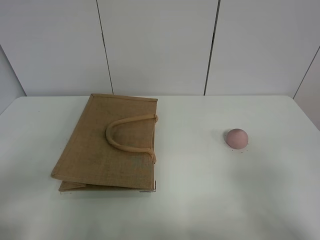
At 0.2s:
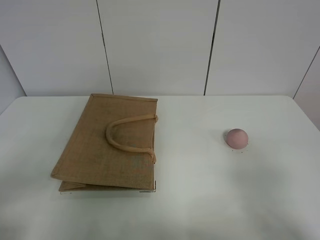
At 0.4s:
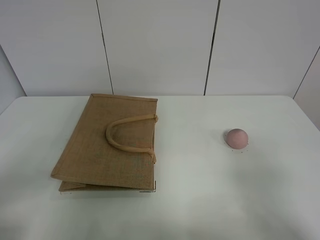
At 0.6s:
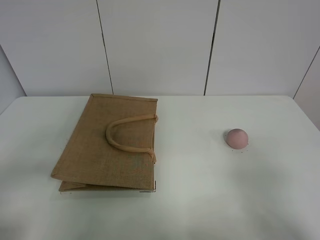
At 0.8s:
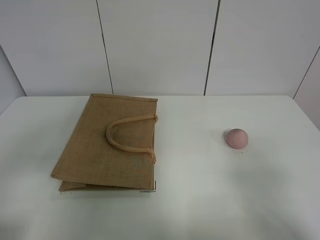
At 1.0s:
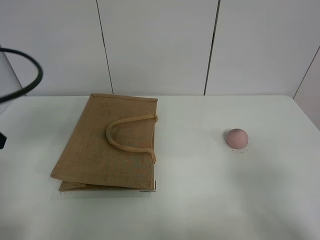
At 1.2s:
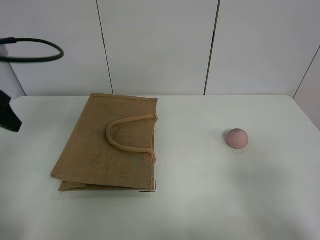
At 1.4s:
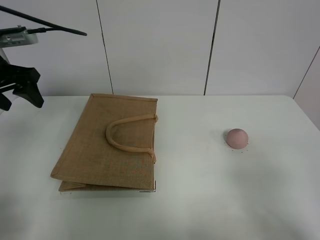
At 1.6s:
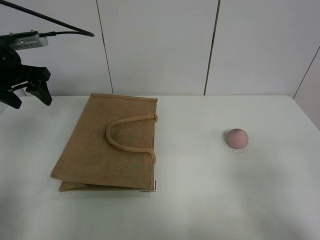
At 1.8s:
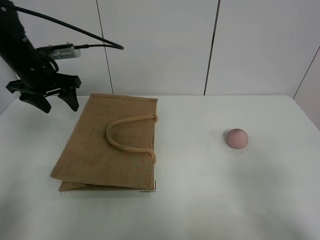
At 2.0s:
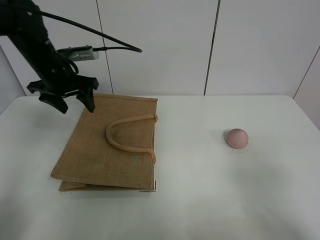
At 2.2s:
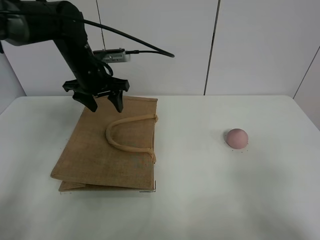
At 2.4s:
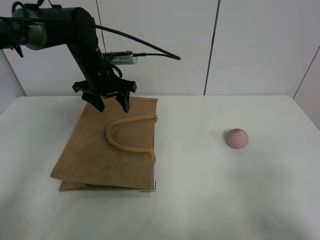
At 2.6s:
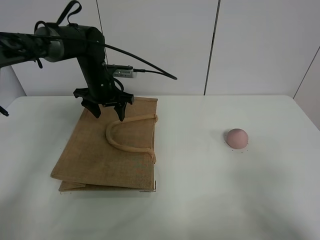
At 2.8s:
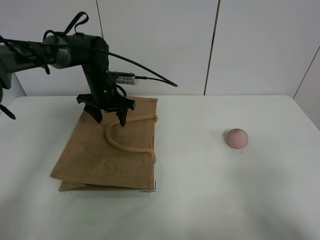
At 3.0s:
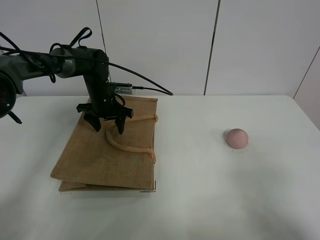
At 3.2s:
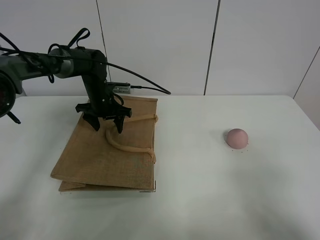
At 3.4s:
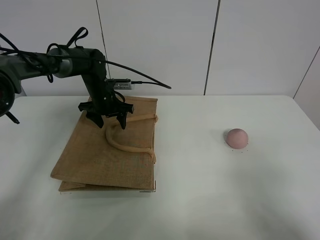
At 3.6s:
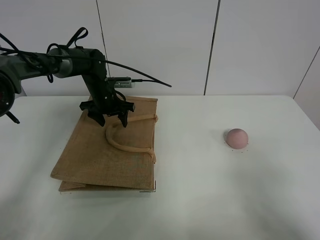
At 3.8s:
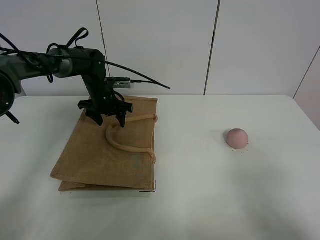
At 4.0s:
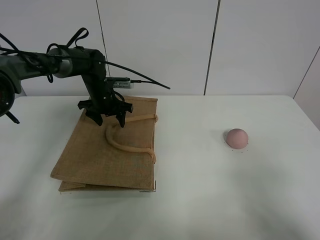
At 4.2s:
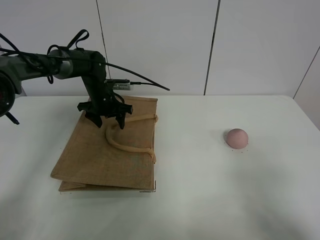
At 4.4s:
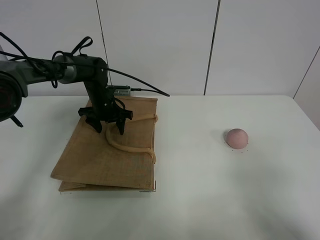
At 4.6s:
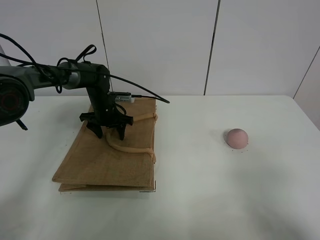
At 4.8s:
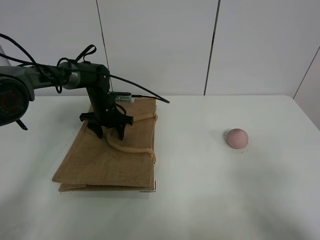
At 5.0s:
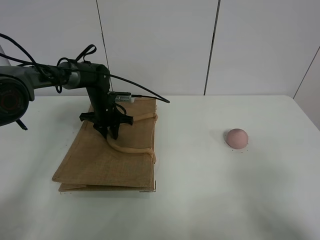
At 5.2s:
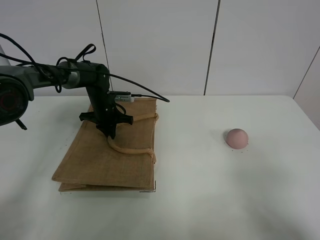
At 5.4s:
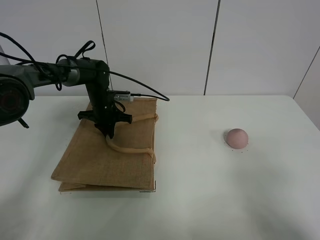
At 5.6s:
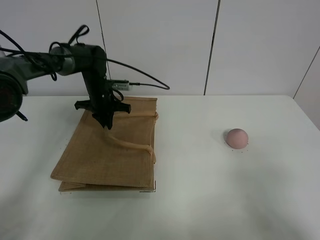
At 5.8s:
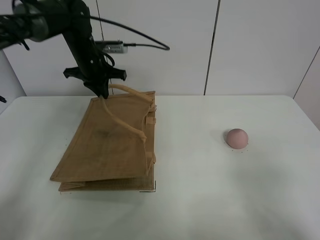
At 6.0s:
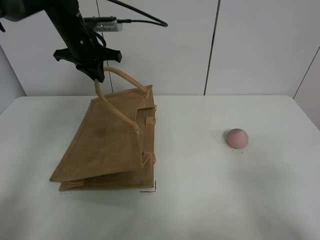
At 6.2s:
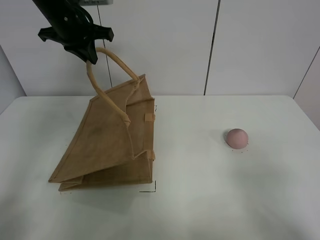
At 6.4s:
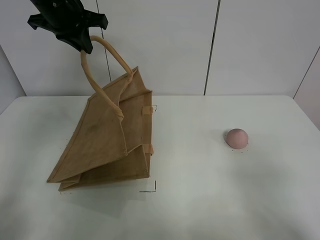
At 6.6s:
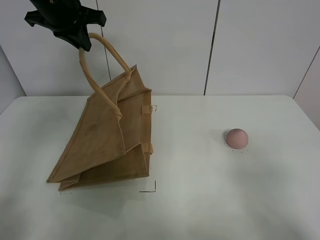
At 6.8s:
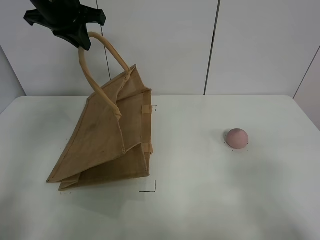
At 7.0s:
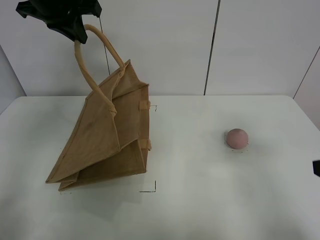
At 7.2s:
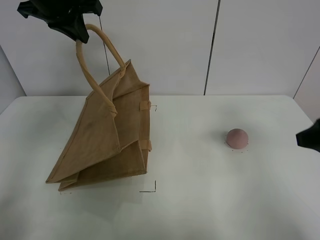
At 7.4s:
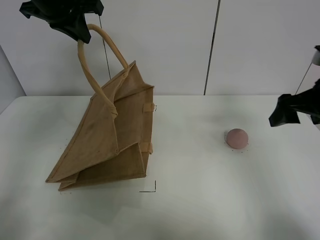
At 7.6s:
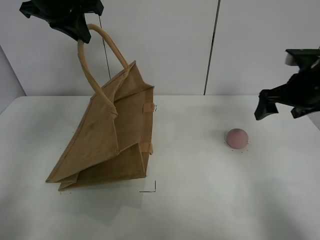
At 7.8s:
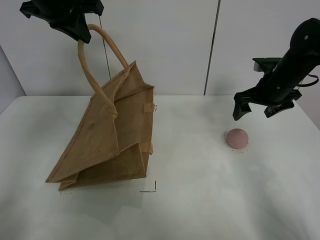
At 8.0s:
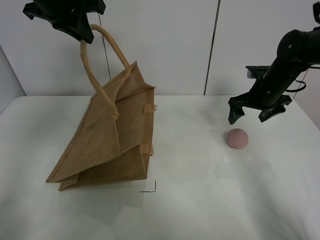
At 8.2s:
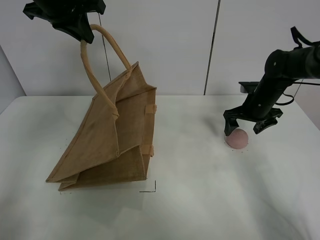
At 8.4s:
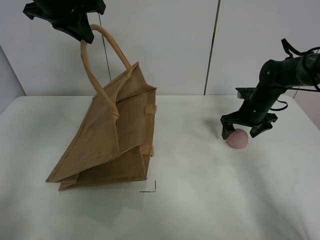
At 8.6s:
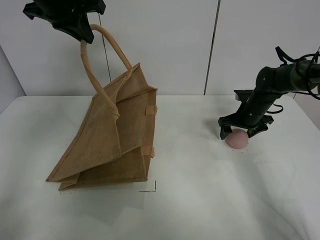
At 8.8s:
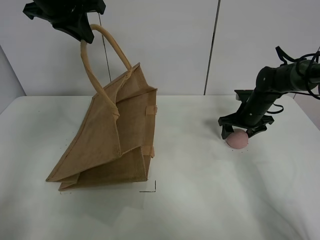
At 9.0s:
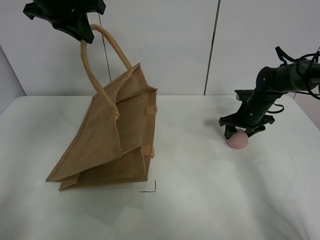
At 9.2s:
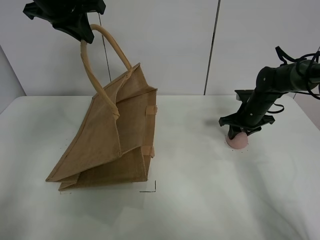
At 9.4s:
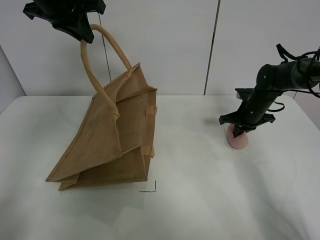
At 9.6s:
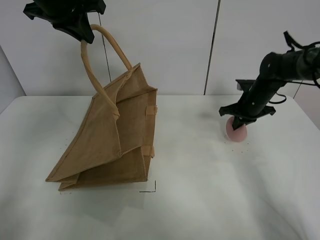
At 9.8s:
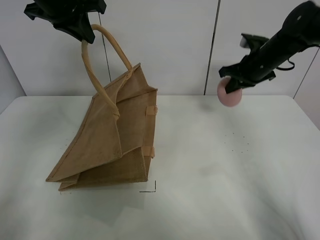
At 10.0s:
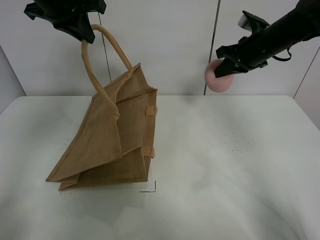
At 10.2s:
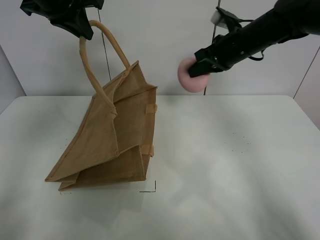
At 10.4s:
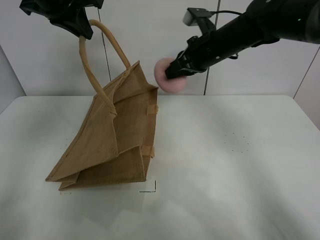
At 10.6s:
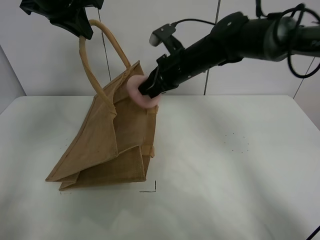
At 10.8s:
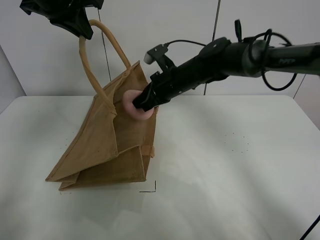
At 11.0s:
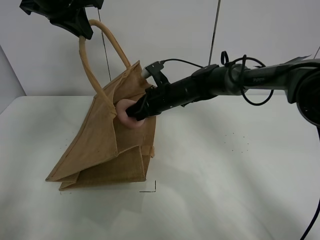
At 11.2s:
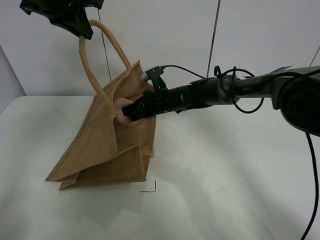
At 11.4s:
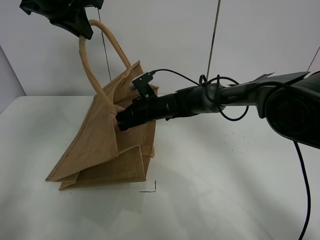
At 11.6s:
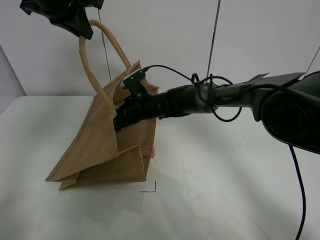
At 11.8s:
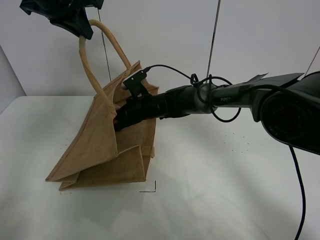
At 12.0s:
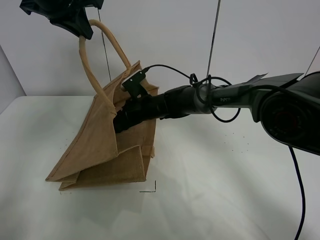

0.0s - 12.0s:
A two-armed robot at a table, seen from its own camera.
Task of the whole recording: open the brown linen bag and put the peach in the bag.
Step, 0.0s - 6.8s: Lift the handbag with left gripper.
Step, 7.0s - 9.4s: Grasp the peach with right gripper.
0.0s - 1.6s: The left gripper is displaced forward by roughly 35 cm.
1.6s - 3.0s: The left gripper is displaced downward, to the right and forward by about 25 cm.
3.0s - 4.4s: The grippers stay close to where they were, moving slightly.
4.4s - 6.0s: The left gripper moves upward, approximately 20 cm, and closes.
6.0s - 7.6s: The right gripper moves forward, approximately 35 cm. Meanwhile the left gripper moves upward and backward, approximately 10 cm.
7.6s - 9.0s: The right gripper goes roughly 15 cm downward and forward.
9.0s - 10.4s: The right gripper is displaced upward and to the left by about 25 cm, and closes its fingers.
10.4s - 12.0s: The right gripper is displaced downward and to the left by about 20 cm, and opens.

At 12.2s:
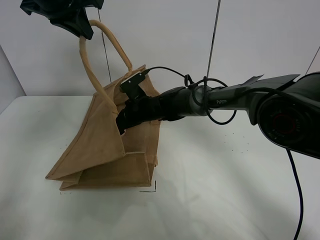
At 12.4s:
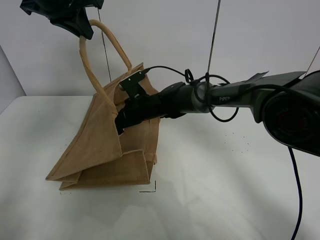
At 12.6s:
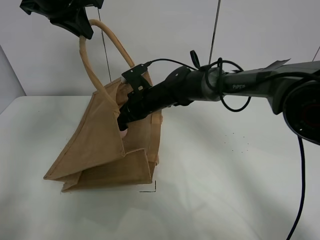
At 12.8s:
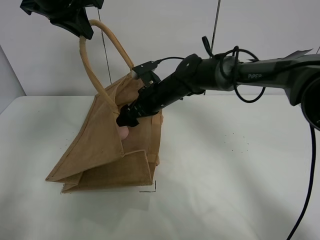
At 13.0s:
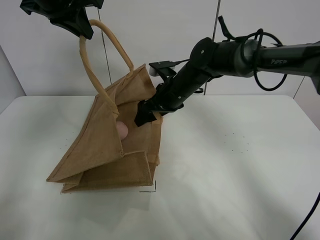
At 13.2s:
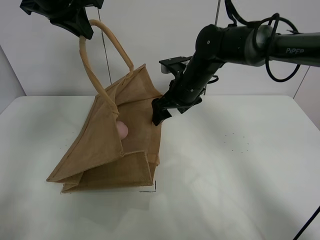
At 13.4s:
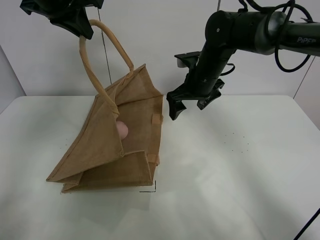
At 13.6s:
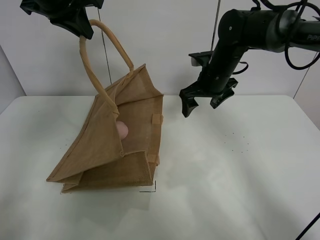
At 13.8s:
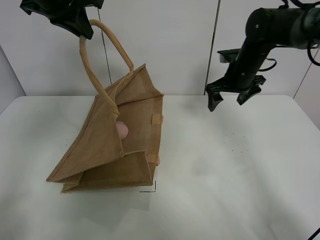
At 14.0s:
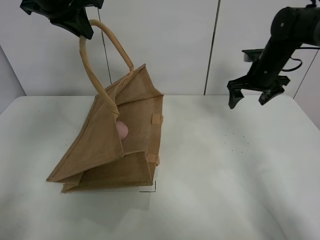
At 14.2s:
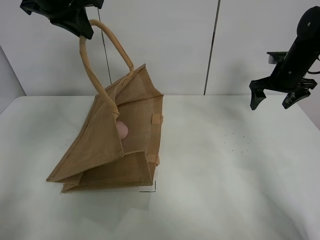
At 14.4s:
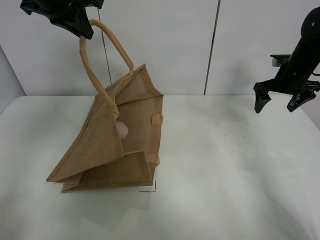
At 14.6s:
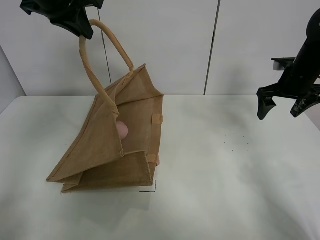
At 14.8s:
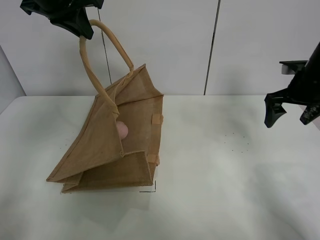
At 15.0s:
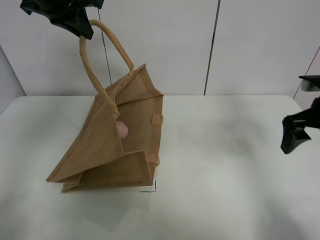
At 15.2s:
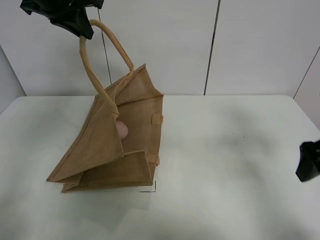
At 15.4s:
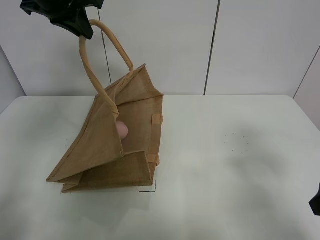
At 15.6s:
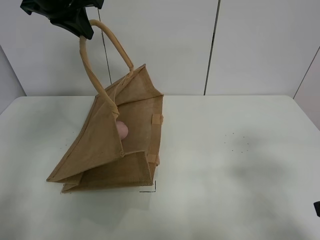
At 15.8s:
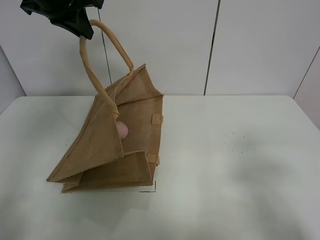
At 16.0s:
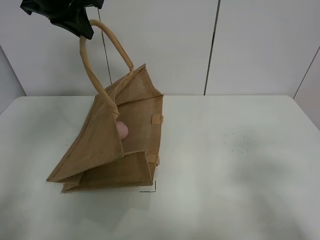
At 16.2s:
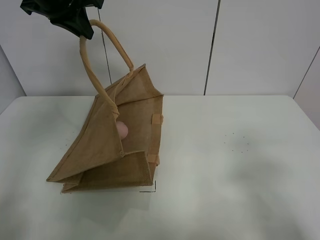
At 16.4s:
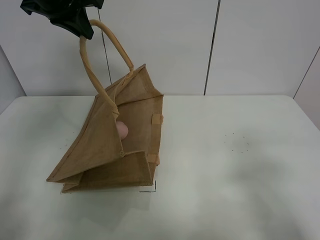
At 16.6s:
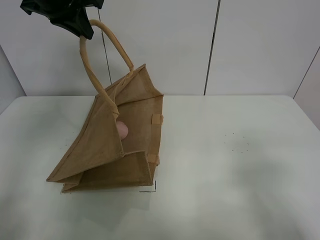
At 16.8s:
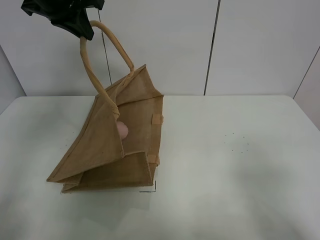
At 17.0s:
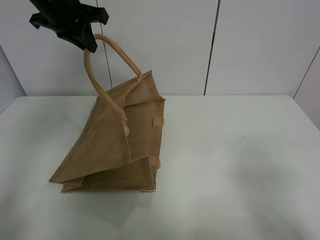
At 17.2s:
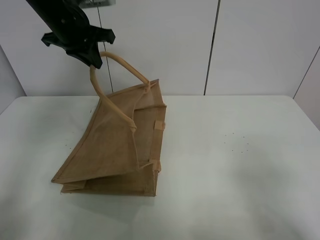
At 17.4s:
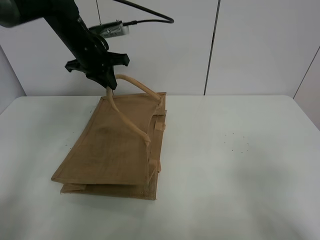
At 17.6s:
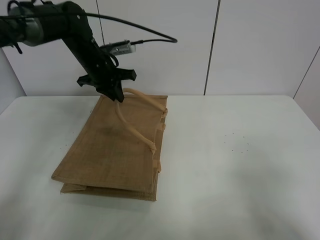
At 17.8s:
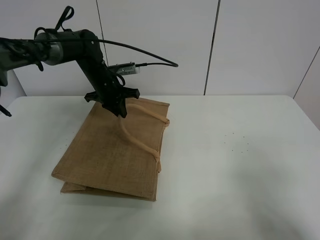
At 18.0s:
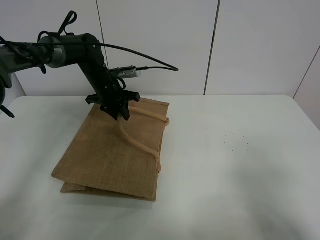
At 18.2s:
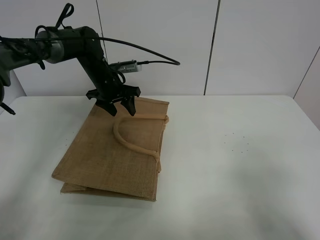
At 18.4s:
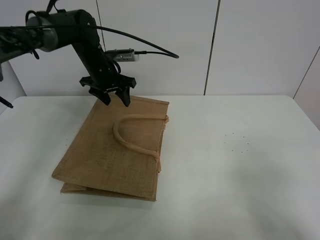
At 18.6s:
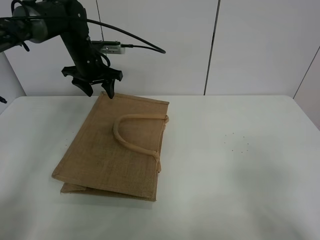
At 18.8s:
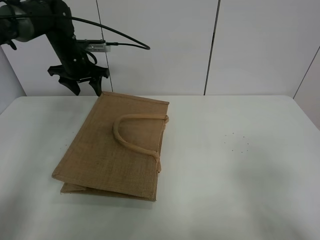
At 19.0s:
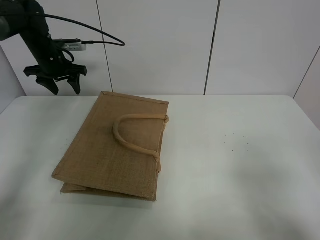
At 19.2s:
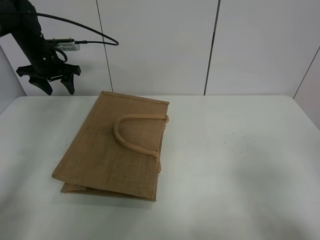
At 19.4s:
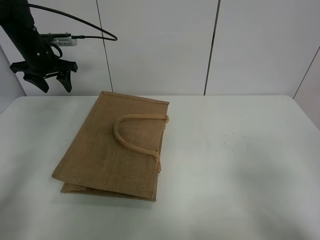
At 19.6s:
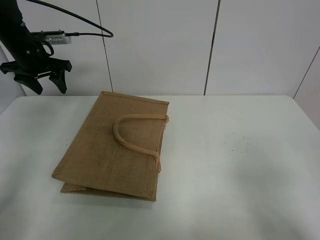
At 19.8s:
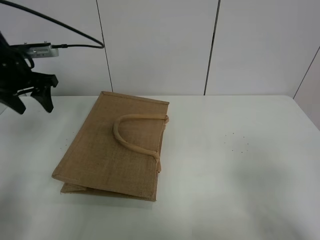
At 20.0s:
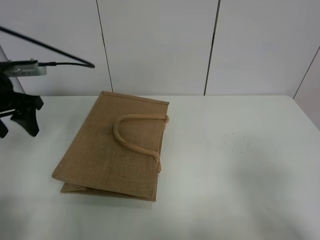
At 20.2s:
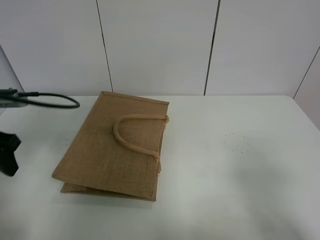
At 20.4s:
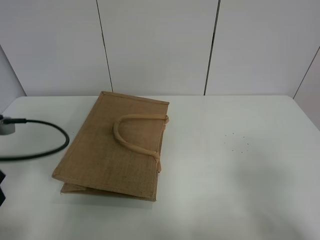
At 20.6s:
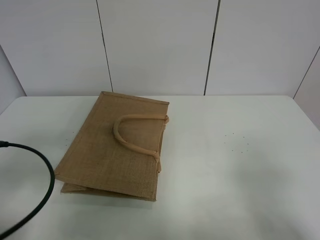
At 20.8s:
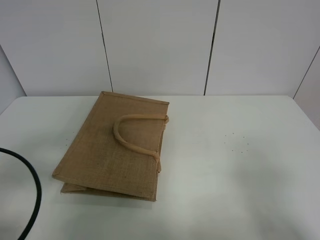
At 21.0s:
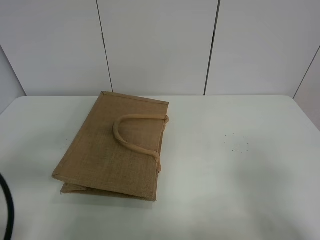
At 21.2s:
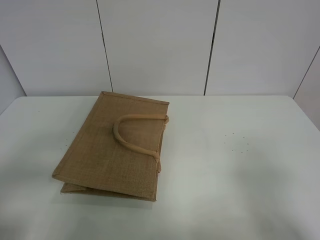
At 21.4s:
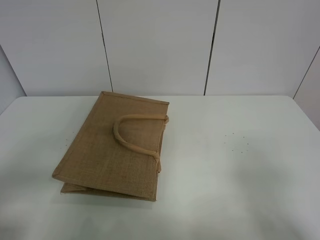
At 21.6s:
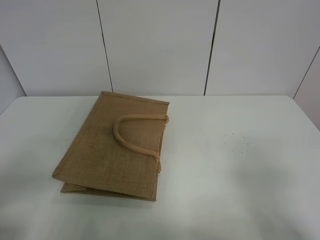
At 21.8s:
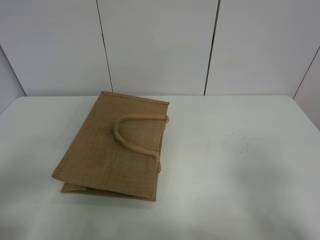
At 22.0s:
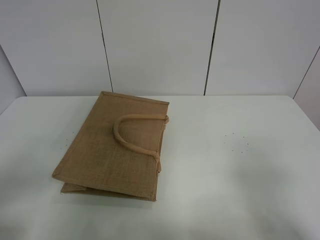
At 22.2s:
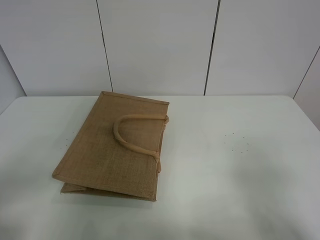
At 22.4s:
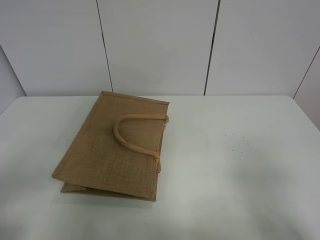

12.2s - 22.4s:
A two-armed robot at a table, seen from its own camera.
Task of the whole recording: open the brown linen bag and put the peach in the bag.
Step, 13.4s - 18.8s: Put down the handbag with left grippe.
12.2s - 13.6s: The right gripper is displaced to the right and upward by roughly 20 cm.
13.6s - 15.2s: The right gripper travels backward and to the right by roughly 30 cm.
15.2s - 16.6s: The right gripper travels backward by roughly 15 cm.
16.6s - 18.0s: The left gripper heads downward, covering about 25 cm, and opens.
18.0s - 19.4s: The left gripper heads to the left and upward, covering roughly 20 cm.
19.4s - 21.0s: The left gripper heads backward, covering some 40 cm.
21.0s - 22.4s: The left gripper shifts roughly 5 cm backward.
